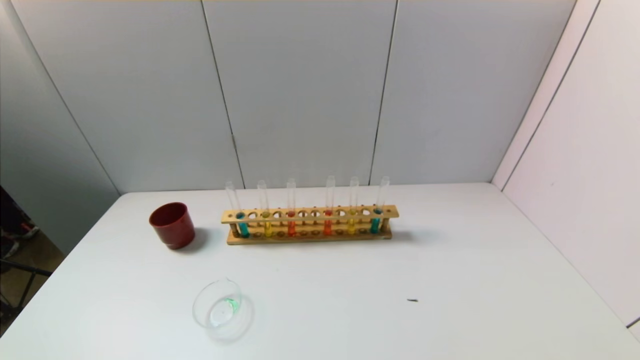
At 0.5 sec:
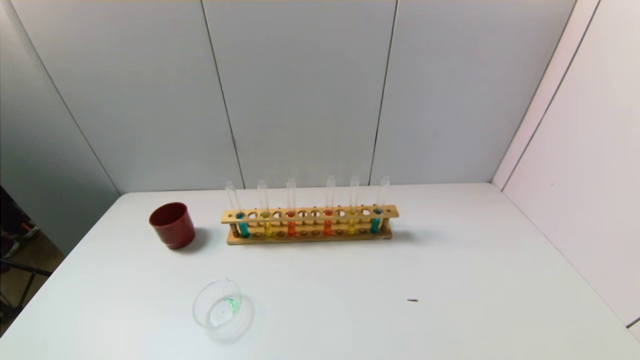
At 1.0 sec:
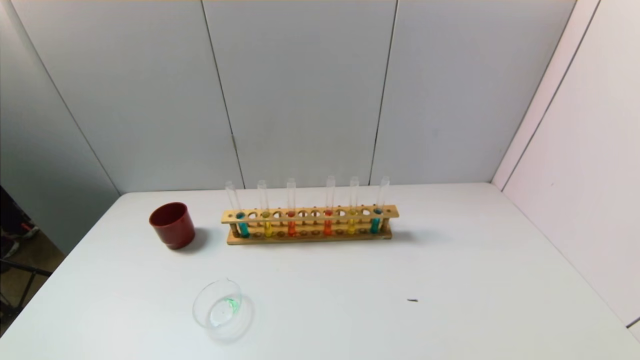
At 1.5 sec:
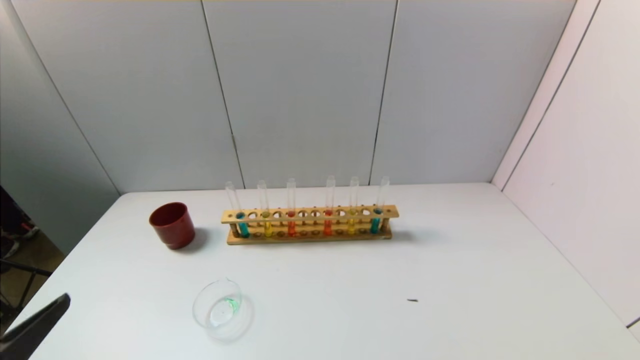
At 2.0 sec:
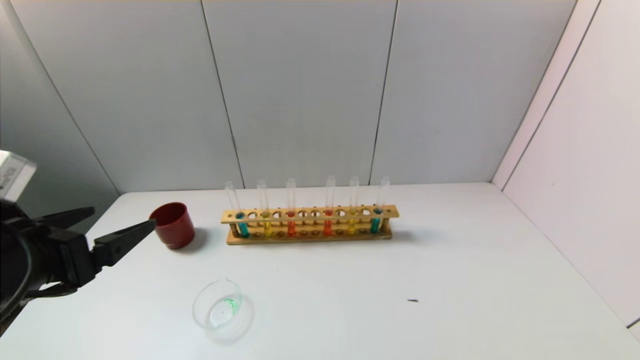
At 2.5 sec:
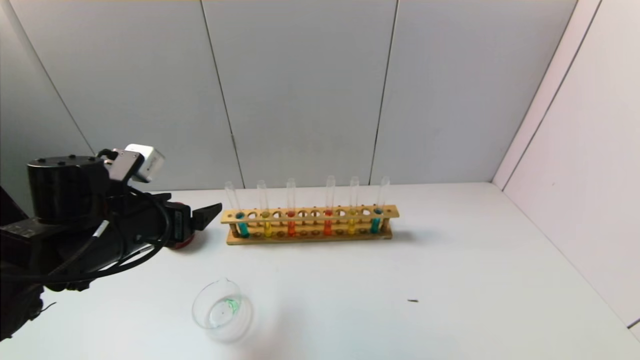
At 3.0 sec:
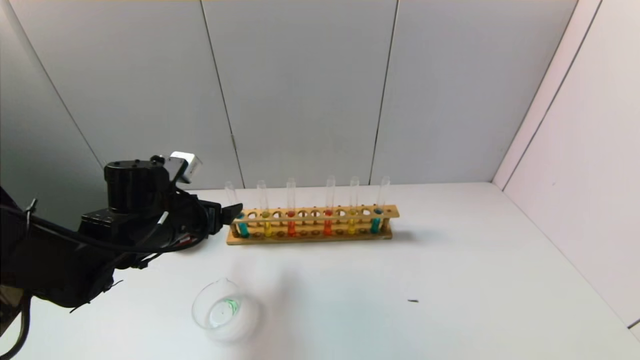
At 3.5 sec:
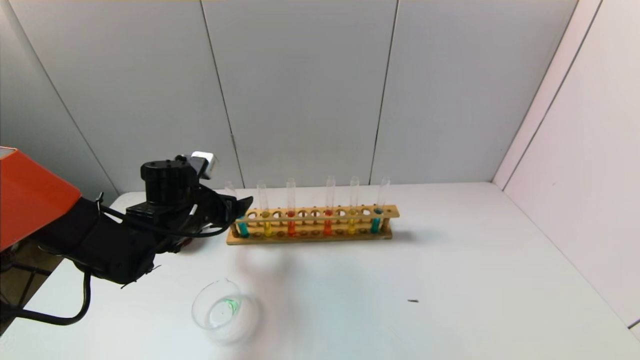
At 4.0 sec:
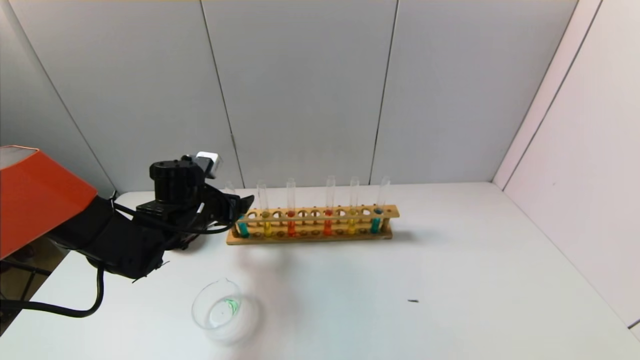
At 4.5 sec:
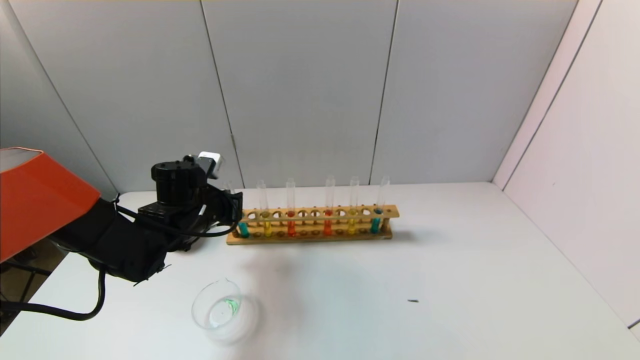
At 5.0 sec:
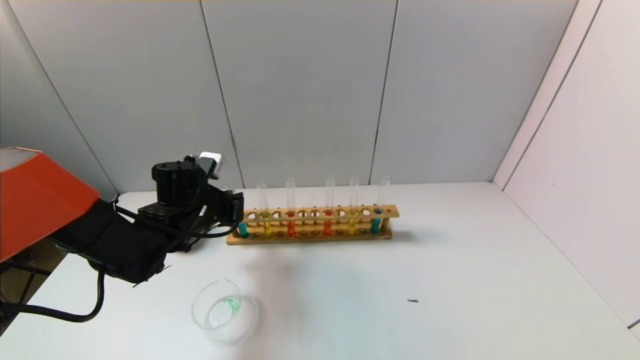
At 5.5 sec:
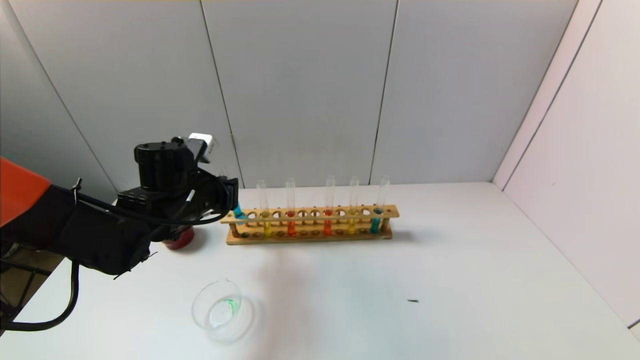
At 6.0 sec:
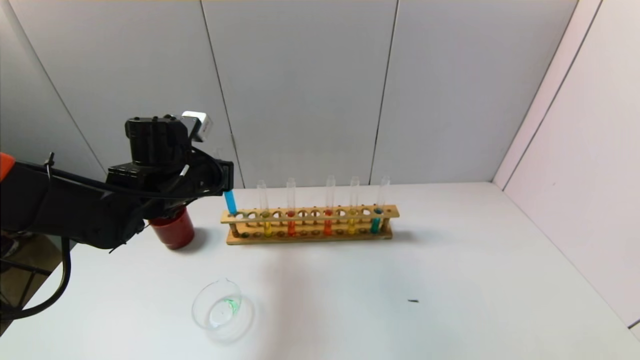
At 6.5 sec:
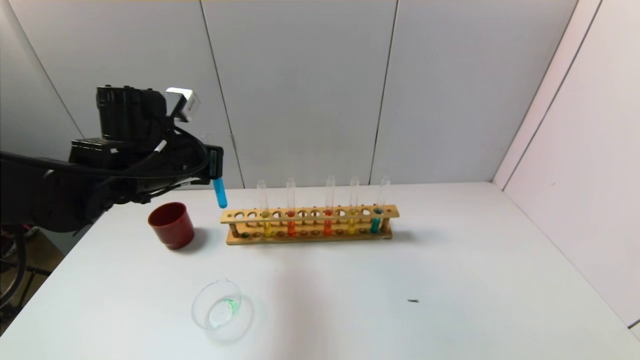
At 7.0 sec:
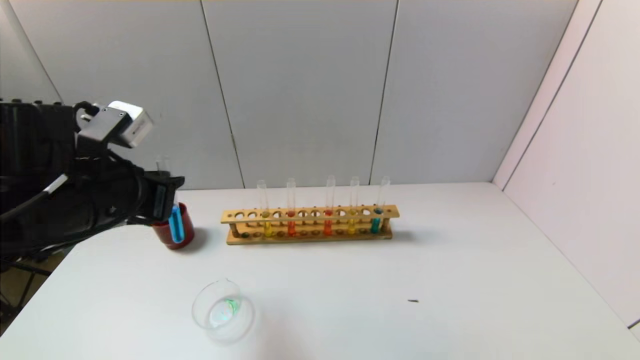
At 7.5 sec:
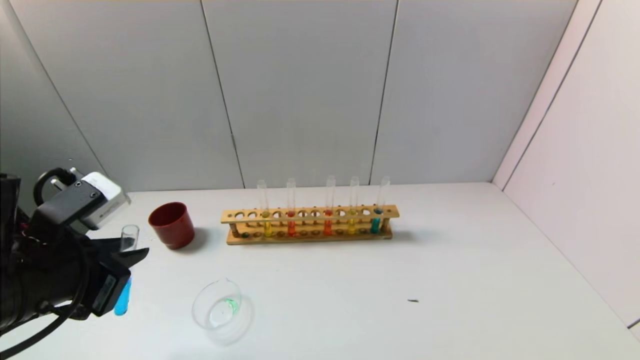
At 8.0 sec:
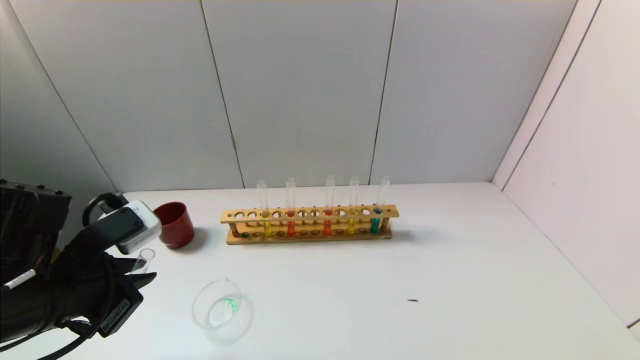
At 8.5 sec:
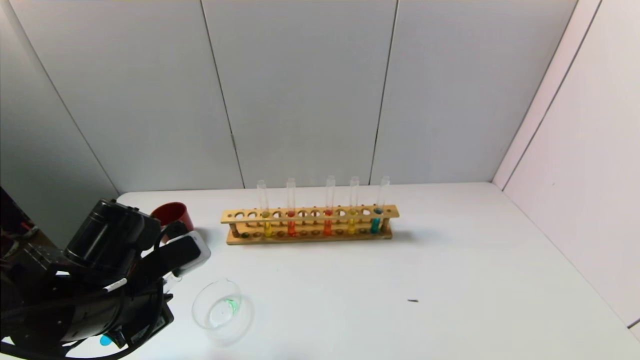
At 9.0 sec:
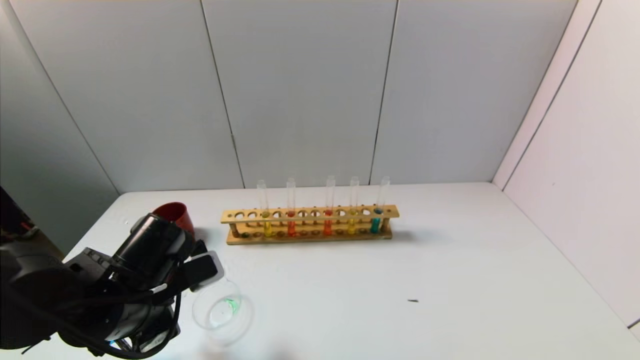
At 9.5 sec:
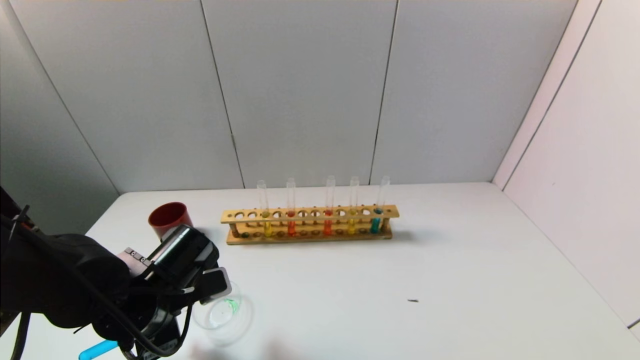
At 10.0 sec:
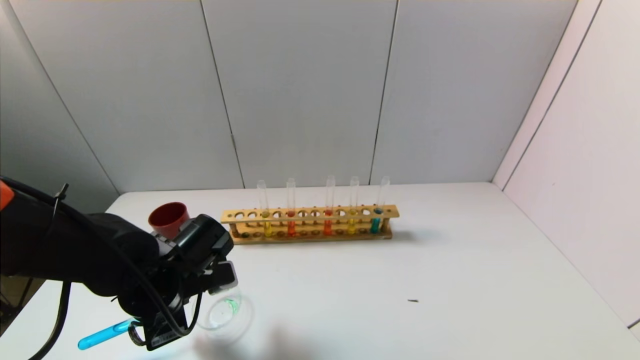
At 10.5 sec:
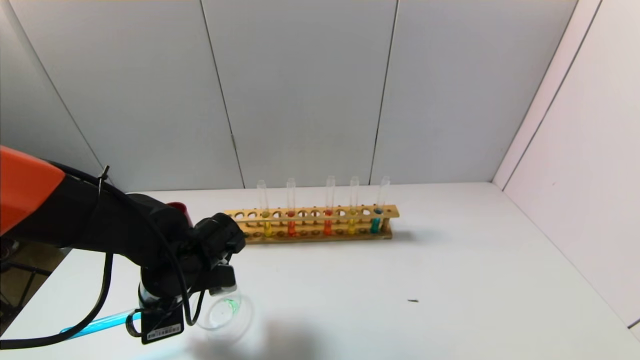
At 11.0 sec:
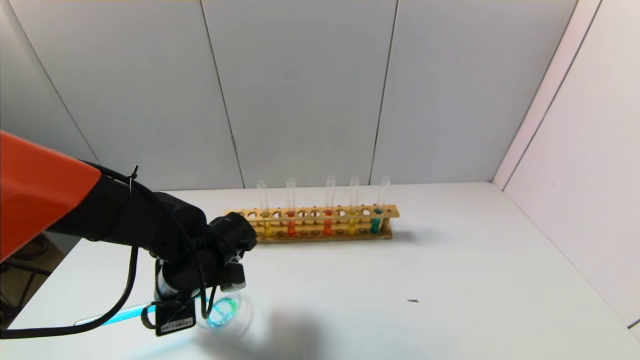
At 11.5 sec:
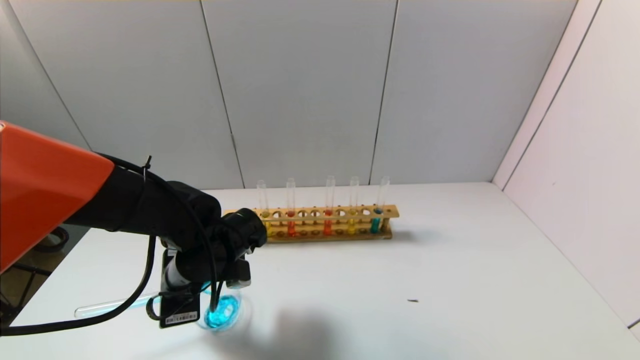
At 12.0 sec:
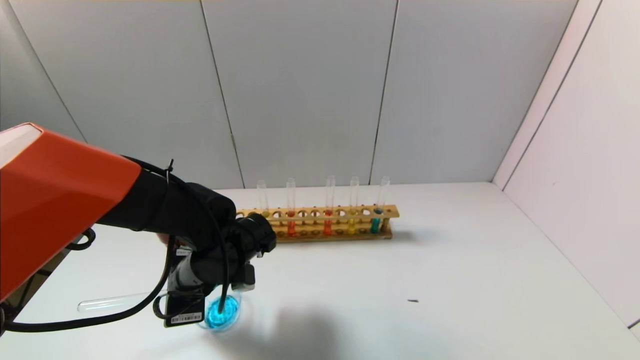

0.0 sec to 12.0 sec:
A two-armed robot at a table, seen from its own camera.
Task of the whole recording: pick up the test tube with yellow pigment and the test tube with blue pigment by grippers and pour them into the beaker.
Step, 0.0 sec to 5.0 sec: Grasp the blue reagent with the left gripper.
0.0 sec to 2.0 sec: The left gripper is displaced forward and upward by roughly 20 cm.
2.0 sec to 4.0 sec: The left gripper travels forward and downward by approximately 25 cm.
4.0 sec to 6.0 sec: The left gripper moves upward, some 5 cm, and closes its fingers.
6.0 sec to 8.0 sec: The left gripper shifts some 20 cm backward.
8.0 sec to 10.0 sec: The left gripper is displaced downward, forward and to the right by approximately 10 cm.
10.0 sec to 12.0 sec: The left gripper moves about 5 cm.

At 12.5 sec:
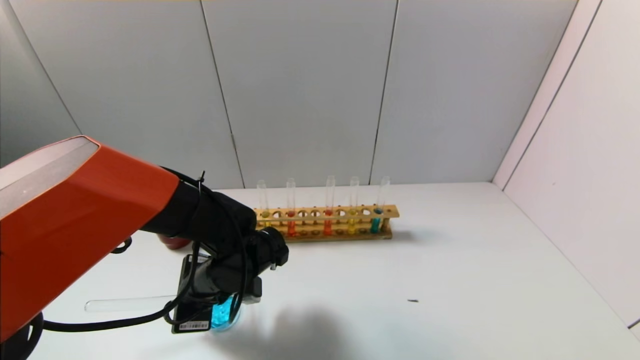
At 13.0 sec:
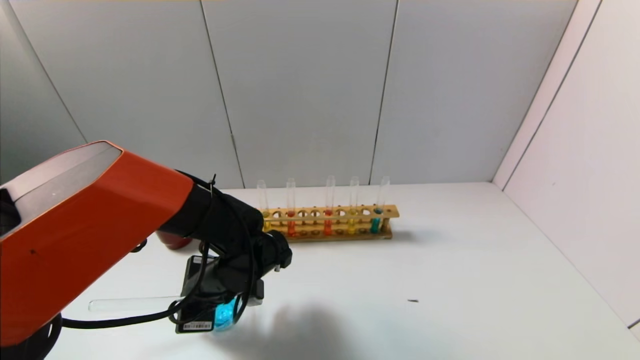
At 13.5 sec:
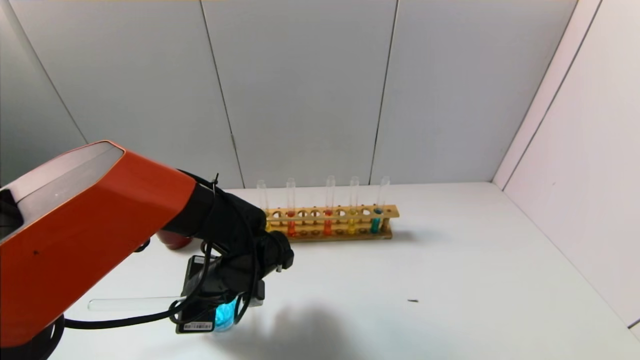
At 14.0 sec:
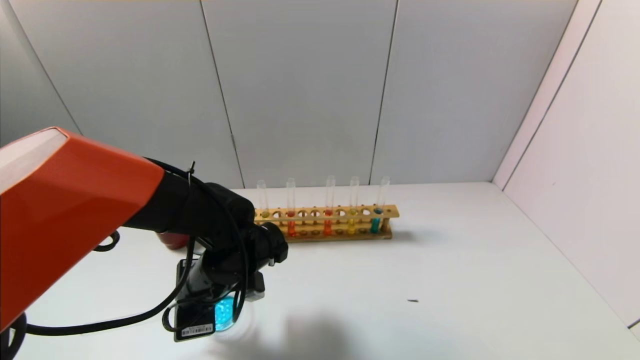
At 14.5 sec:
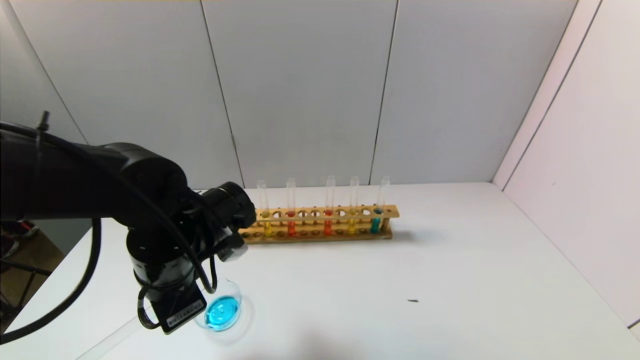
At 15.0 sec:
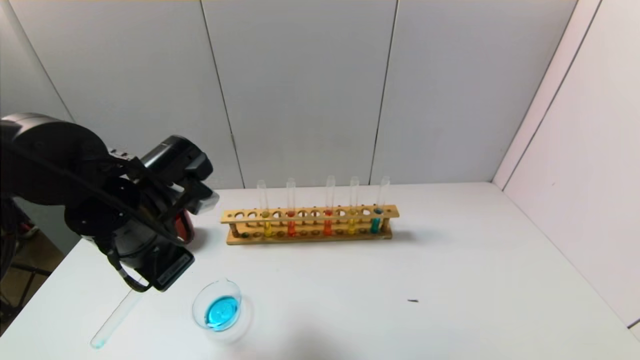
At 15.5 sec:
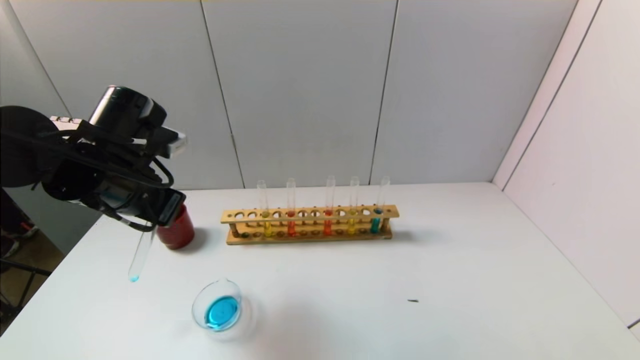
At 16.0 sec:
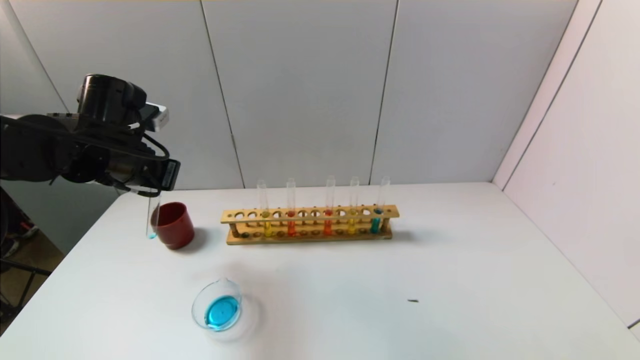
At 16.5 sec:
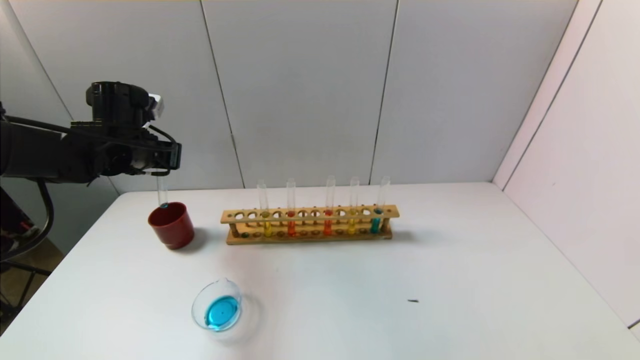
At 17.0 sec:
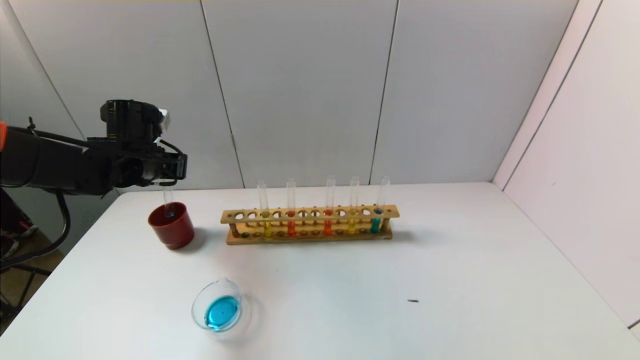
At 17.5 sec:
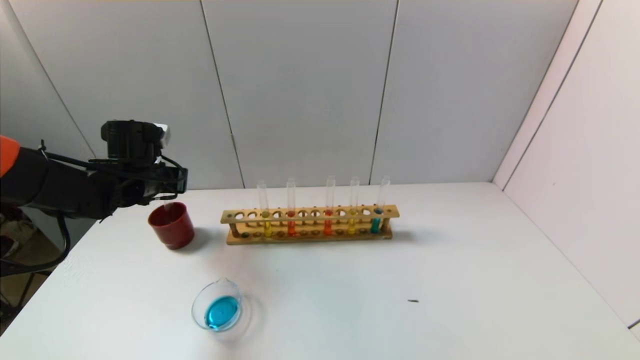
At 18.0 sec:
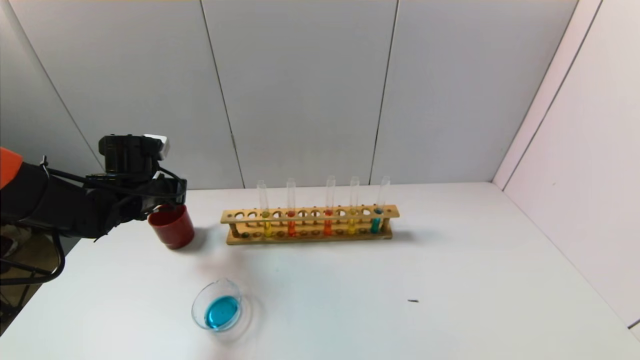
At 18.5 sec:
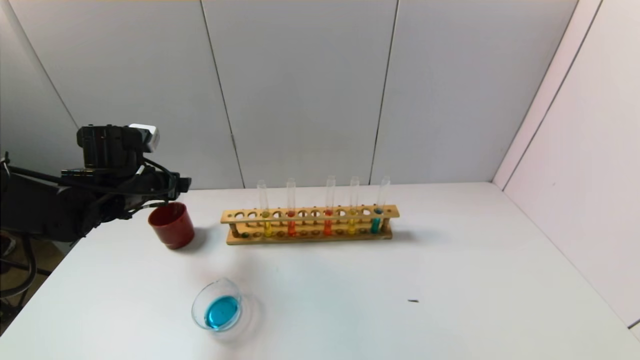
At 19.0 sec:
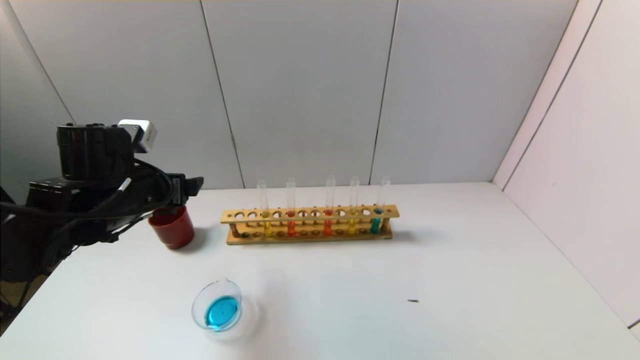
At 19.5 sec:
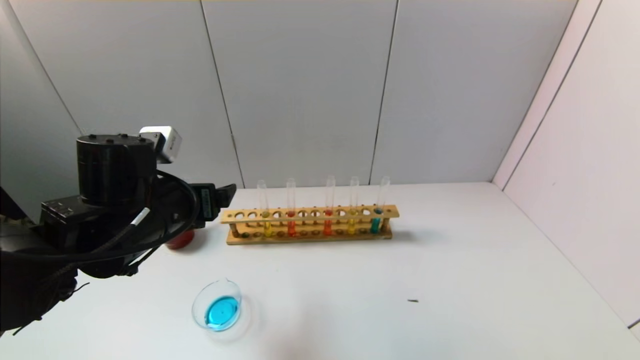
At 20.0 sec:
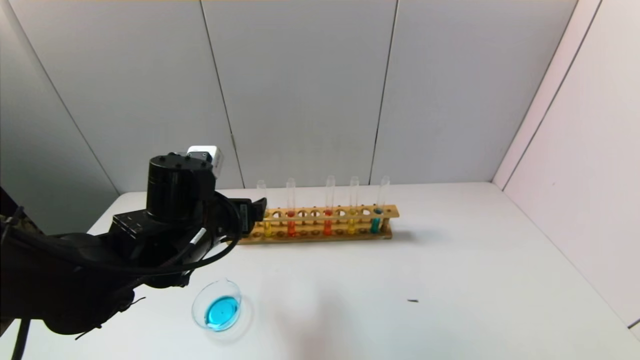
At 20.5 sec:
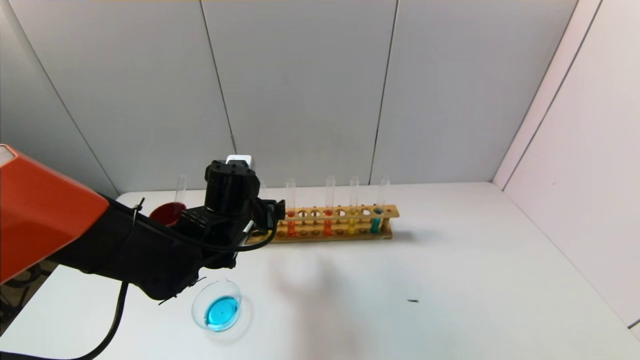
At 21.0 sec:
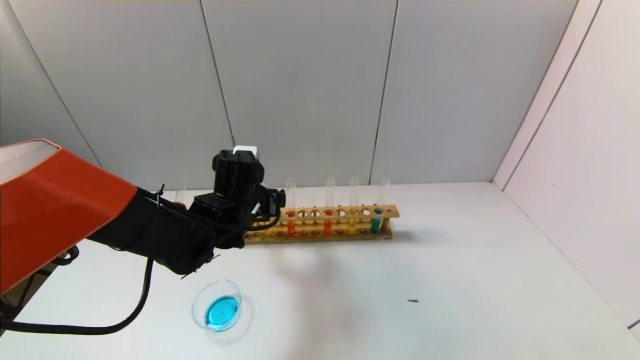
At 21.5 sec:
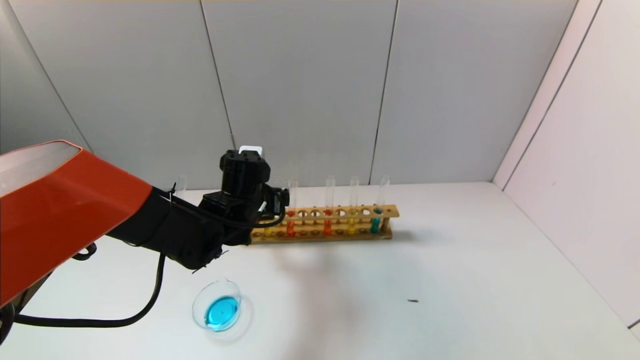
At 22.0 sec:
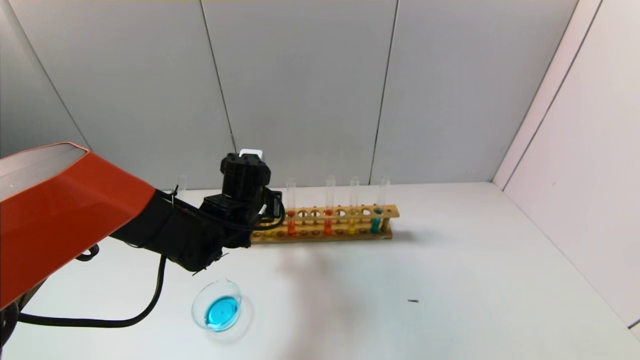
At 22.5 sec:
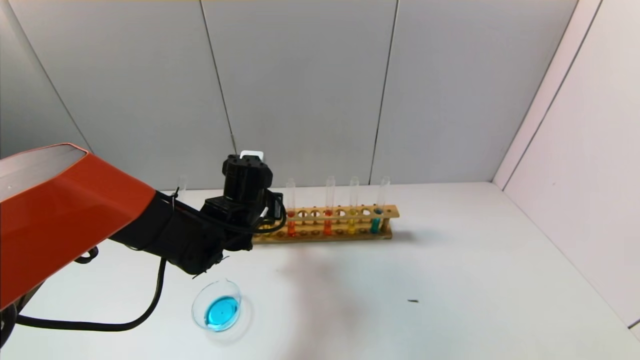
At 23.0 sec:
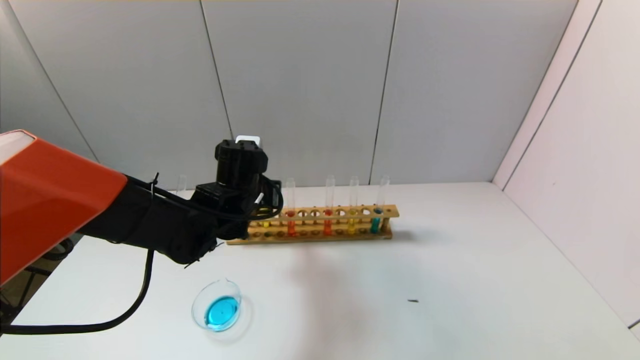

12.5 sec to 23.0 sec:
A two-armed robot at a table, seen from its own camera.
Task of the whole recording: pick up the test tube with yellow pigment and the test tube with blue pigment by grippers and pour them into the beaker.
Step, 14.0 sec to 18.0 sec: Place the test tube into the brown cup with the left gripper.
Step, 18.5 sec to 22.5 sec: Grasp the yellow reagent with the left gripper.
12.5 sec to 14.5 sec: The left gripper goes approximately 10 cm upward.
14.5 sec to 16.5 sec: The left gripper heads forward and to the left, covering roughly 20 cm.
16.5 sec to 19.0 sec: The left gripper moves backward, some 10 cm, and opens.
19.0 sec to 21.0 sec: The left gripper moves to the right, forward and downward, some 15 cm.
21.0 sec to 23.0 sec: The left gripper closes up.
